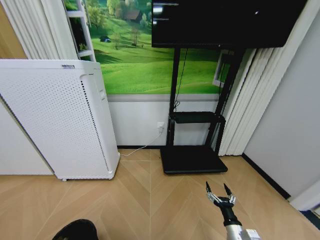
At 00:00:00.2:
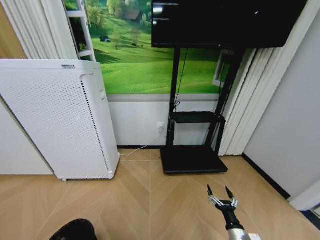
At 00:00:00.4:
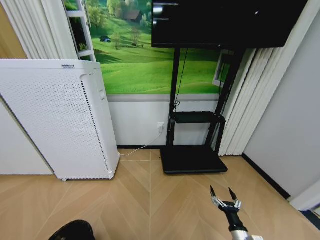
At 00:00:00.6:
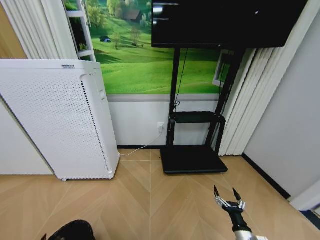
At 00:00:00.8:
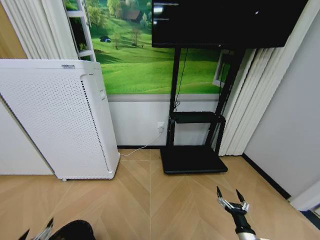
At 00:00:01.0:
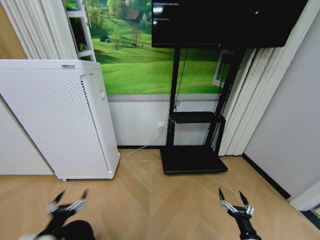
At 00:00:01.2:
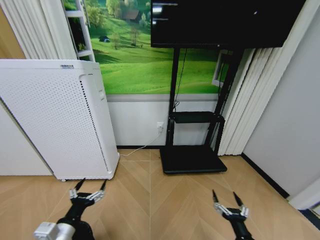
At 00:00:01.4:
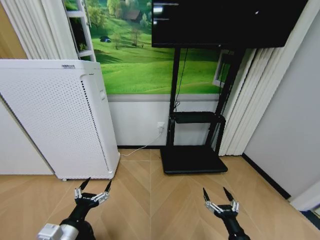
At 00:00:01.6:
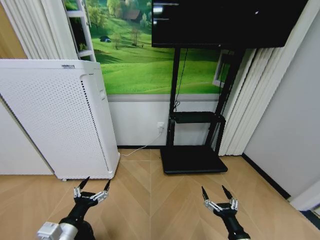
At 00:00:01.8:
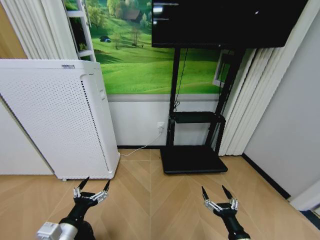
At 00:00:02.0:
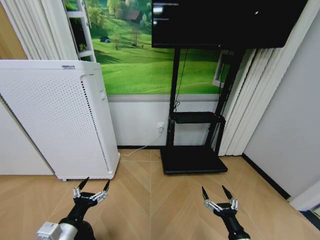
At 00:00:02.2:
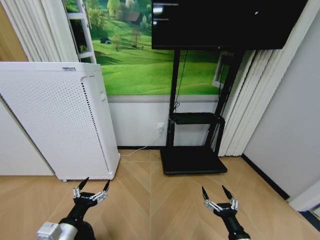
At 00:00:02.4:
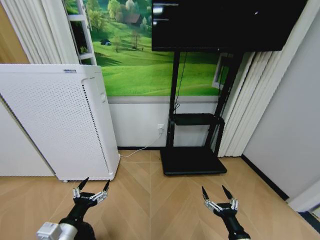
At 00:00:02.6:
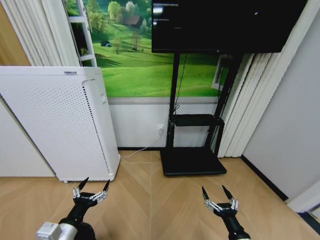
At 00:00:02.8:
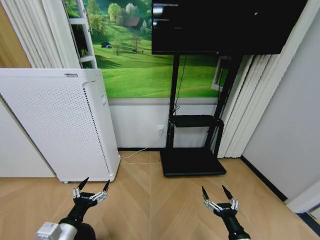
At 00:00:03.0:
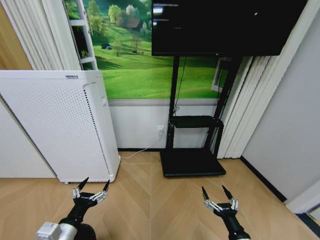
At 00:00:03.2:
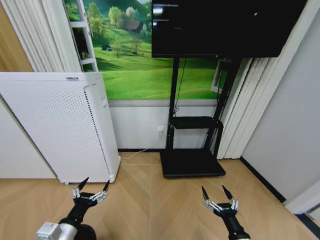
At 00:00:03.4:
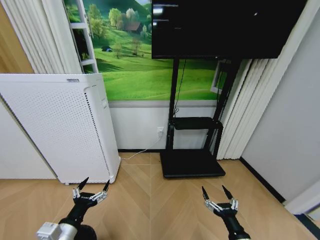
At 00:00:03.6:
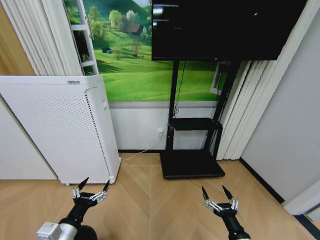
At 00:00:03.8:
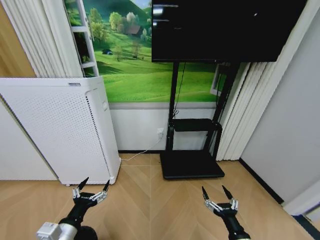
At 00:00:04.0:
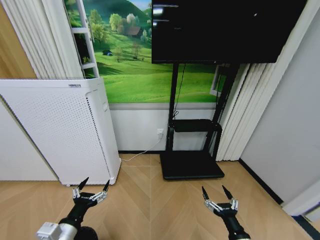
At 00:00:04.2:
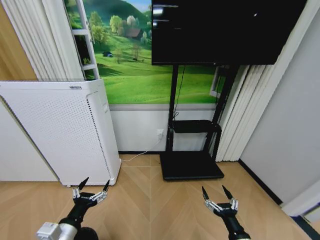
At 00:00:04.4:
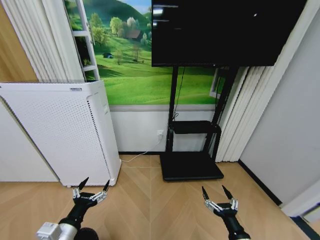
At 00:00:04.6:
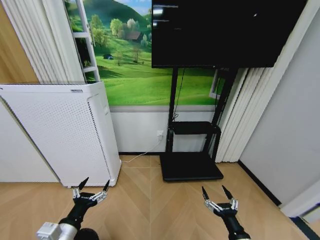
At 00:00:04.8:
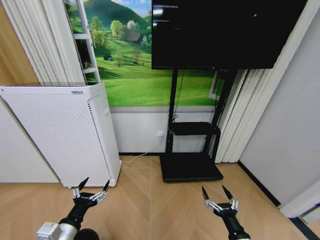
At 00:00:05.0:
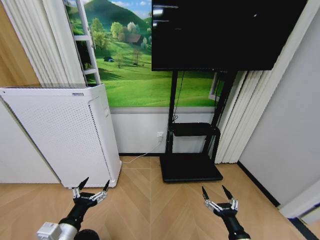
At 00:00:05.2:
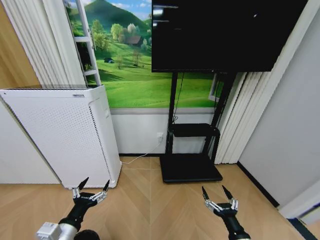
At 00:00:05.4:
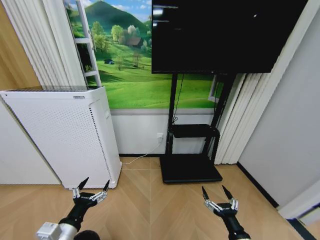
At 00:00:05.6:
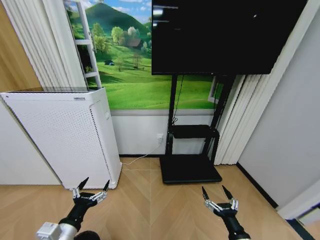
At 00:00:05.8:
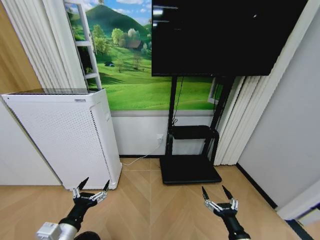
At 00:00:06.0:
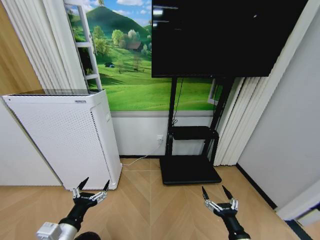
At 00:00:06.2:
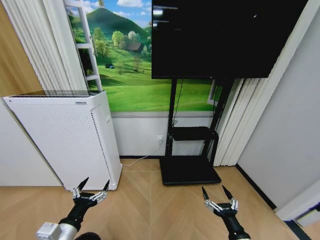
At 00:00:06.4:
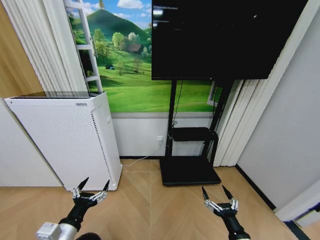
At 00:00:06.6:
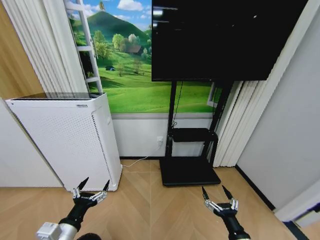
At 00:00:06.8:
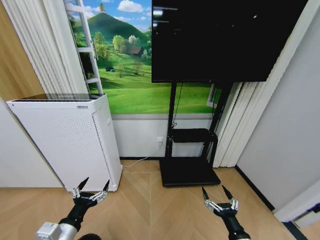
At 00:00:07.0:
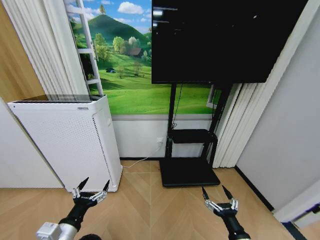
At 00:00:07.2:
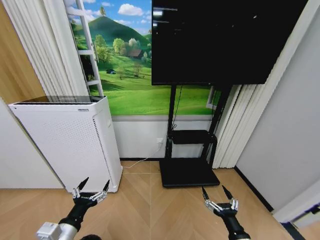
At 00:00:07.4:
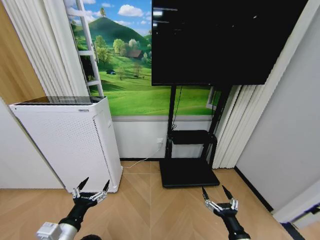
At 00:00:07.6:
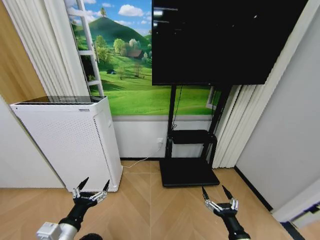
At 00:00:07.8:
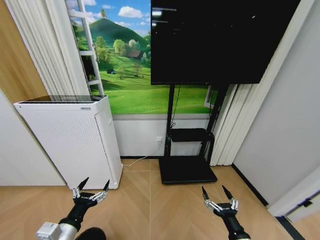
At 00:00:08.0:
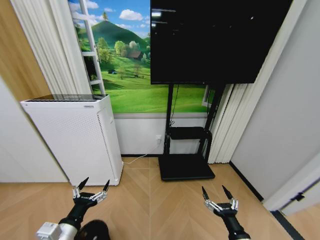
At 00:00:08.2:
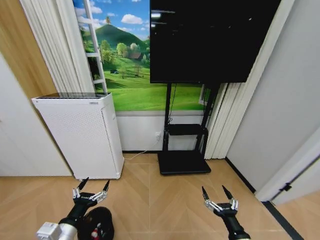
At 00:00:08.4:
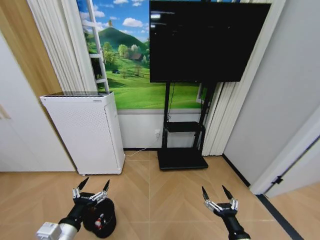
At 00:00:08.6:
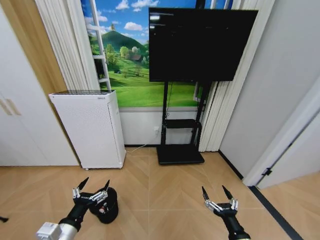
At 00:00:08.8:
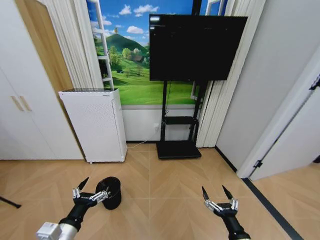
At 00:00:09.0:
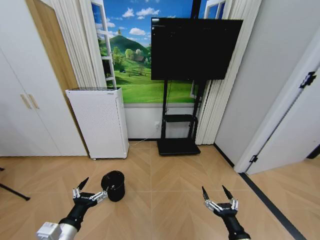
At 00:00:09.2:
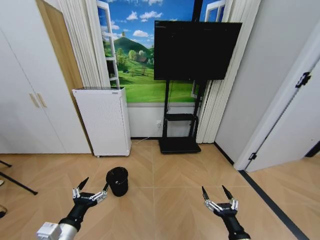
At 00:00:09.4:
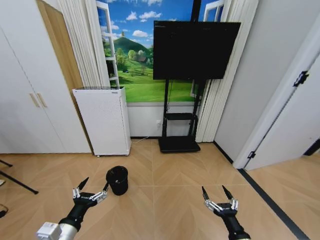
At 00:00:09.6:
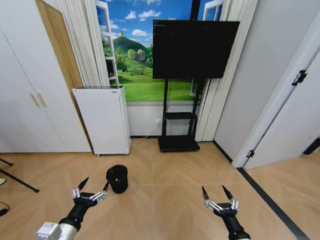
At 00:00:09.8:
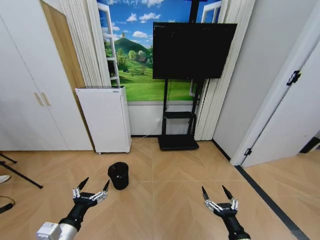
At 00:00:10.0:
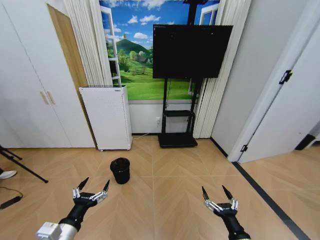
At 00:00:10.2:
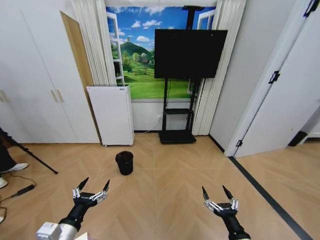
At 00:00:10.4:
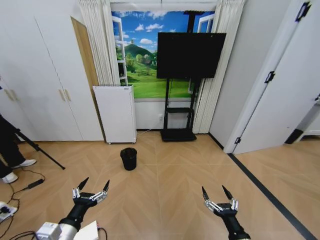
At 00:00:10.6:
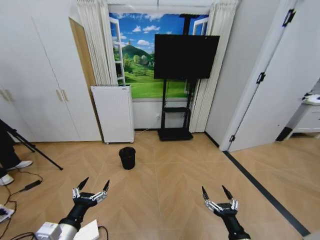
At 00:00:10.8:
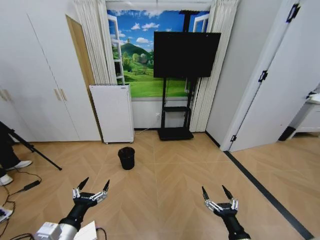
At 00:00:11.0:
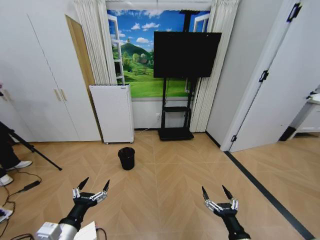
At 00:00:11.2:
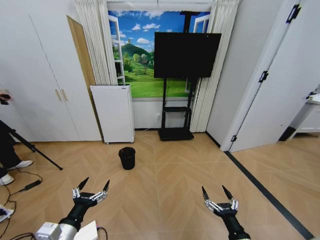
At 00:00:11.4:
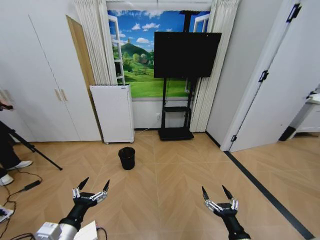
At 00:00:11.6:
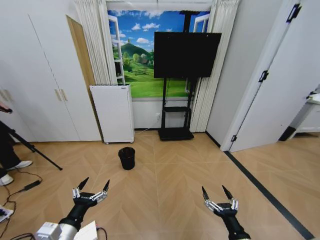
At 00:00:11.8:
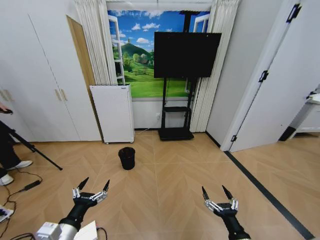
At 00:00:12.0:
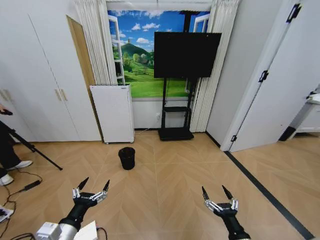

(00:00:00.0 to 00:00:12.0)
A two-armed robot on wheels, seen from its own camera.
Task of the whole recording: Pick up the trash bin and place the garbage on the floor into it.
00:00:00.0 - 00:00:01.6: The left gripper goes some 25 cm upward, forward and to the right, and opens up. Meanwhile the right gripper moves upward and backward, roughly 10 cm.
00:00:01.6 - 00:00:07.6: Neither gripper changes place.
00:00:10.4 - 00:00:12.0: Both grippers stay put.
